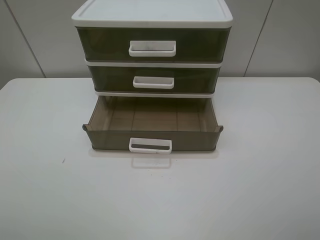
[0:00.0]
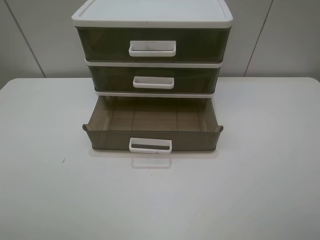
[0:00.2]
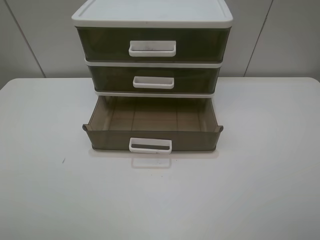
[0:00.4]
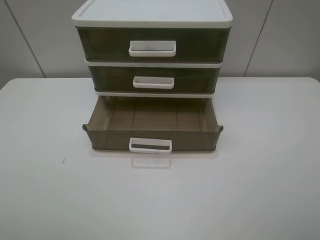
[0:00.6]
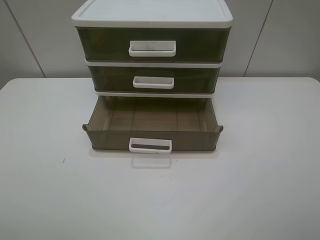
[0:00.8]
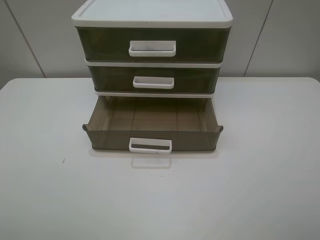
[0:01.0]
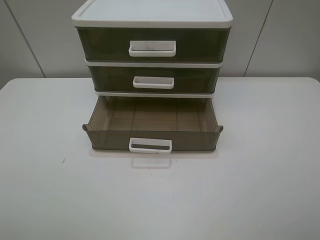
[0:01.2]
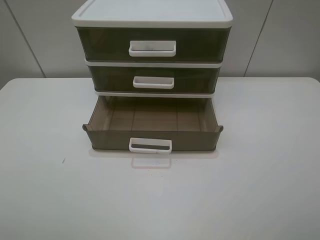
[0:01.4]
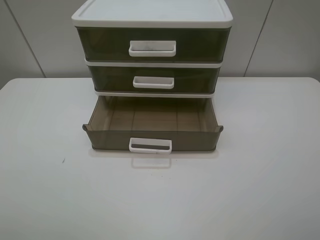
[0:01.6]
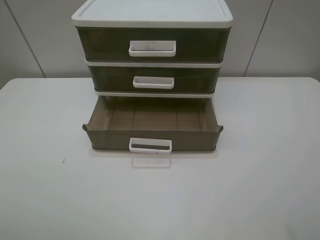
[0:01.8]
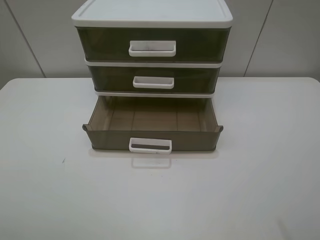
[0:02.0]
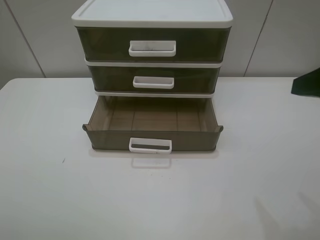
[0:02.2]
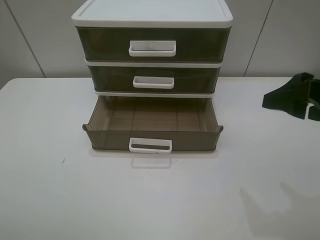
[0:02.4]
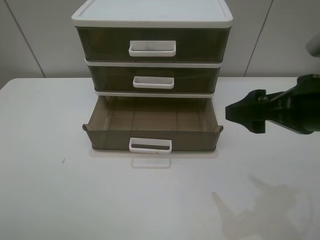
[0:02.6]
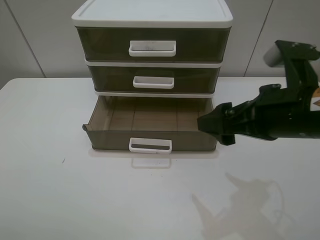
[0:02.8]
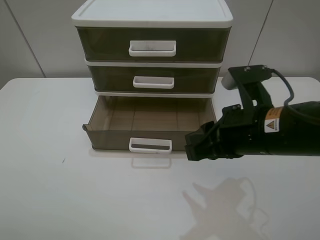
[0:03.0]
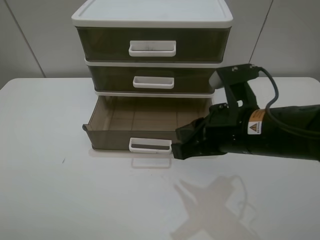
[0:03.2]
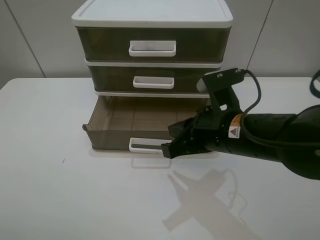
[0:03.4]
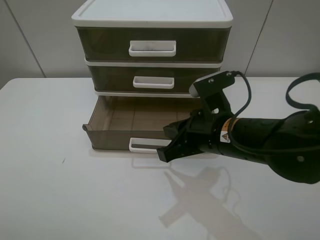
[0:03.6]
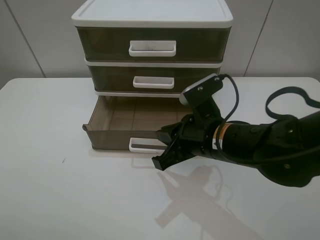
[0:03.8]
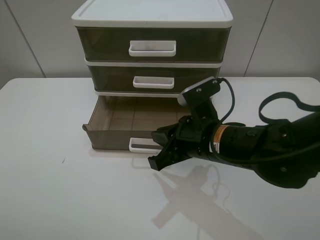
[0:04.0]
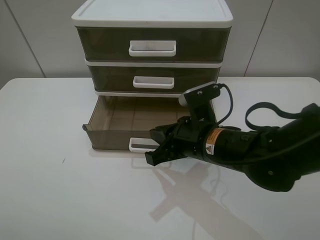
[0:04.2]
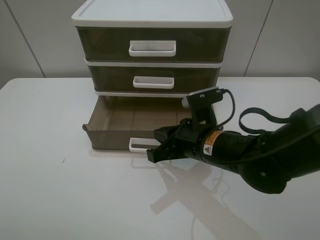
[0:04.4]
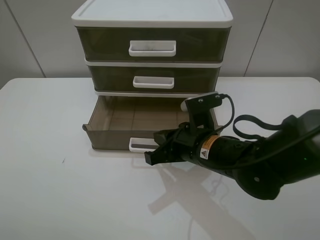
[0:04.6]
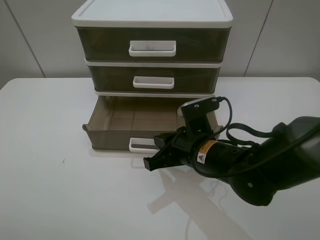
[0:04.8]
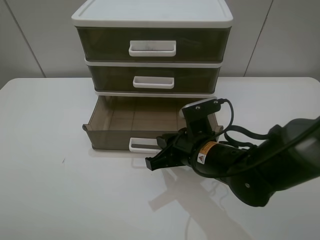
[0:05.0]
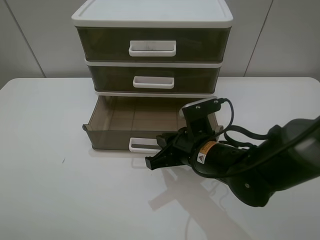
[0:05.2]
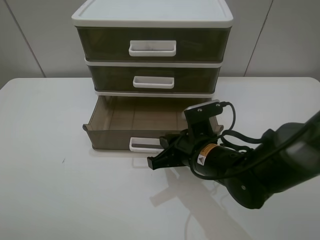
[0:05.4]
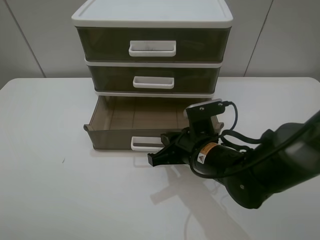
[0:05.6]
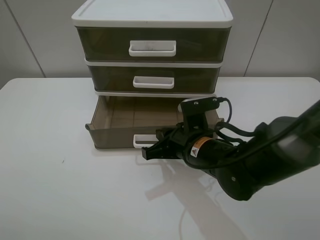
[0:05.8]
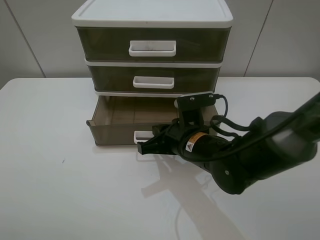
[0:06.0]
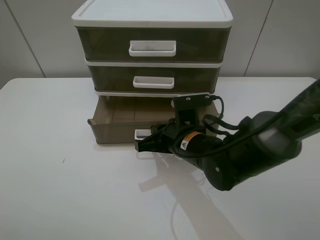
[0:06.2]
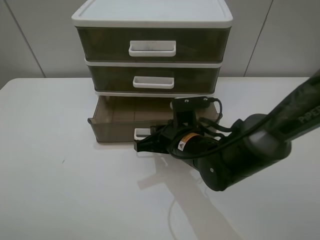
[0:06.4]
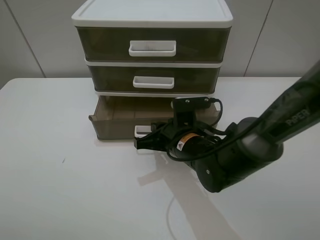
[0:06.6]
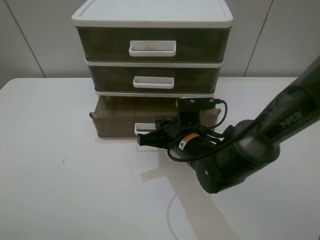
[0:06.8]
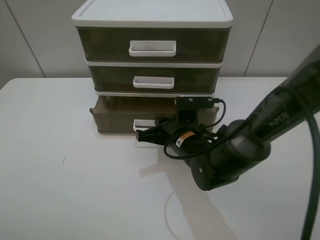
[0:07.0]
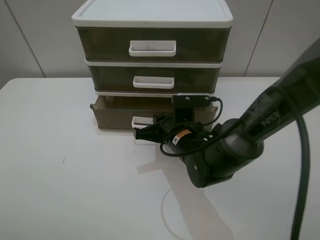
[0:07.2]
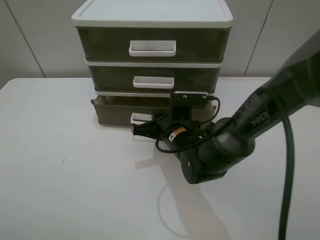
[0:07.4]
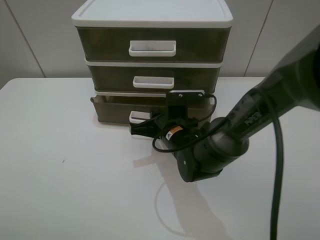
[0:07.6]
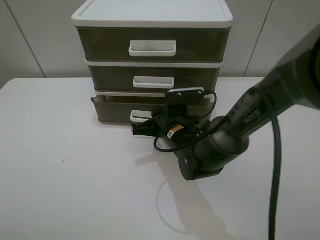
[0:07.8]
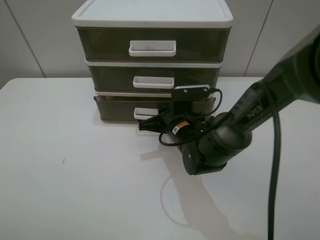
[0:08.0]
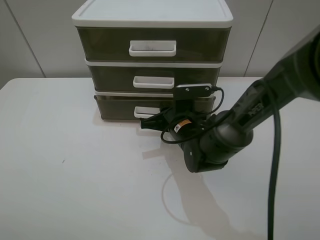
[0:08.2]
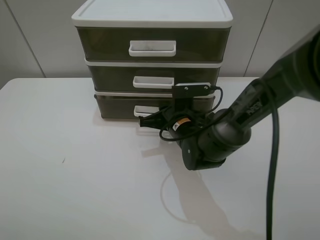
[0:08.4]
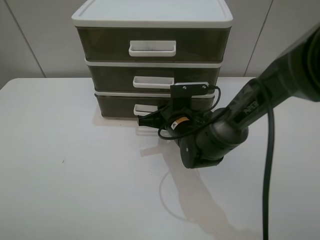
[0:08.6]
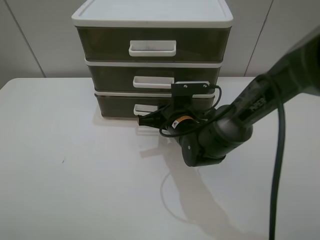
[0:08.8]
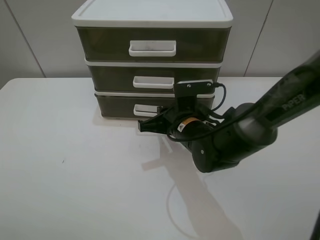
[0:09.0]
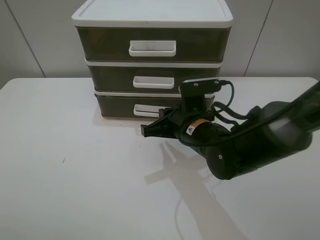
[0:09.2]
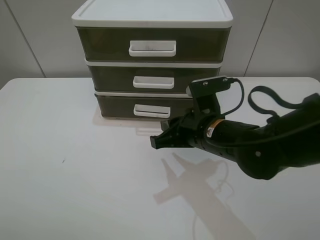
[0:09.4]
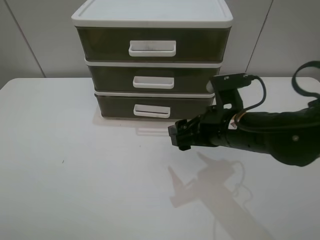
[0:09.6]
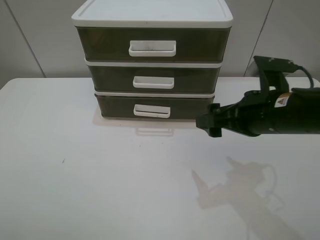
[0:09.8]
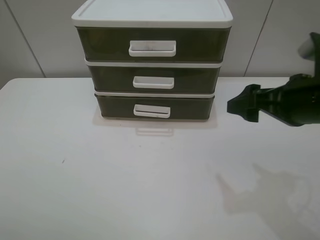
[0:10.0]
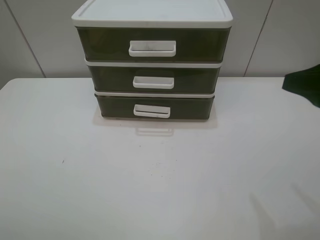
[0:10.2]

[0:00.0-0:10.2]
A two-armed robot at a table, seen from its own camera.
Task of the whole recording: close the bottom drawer.
Step, 0:00.0 to 0:04.2: Use the right gripper to contact the bottom layer of the storage cabinet.
Step, 0:04.4 to 0:08.4: Push the bottom drawer closed.
0:01.4 to 0:03.0: The right gripper moves to the left, forward and downward, some 25 cm, and closes up.
0:03.0 to 0:04.4: The right gripper shifts approximately 10 cm downward.
0:04.4 to 0:05.8: There are only small adjustments of the grippers.
0:05.8 to 0:07.2: The right gripper moves approximately 5 cm.
0:07.2 to 0:08.8: There are only small adjustments of the grippers.
0:08.8 to 0:10.2: The right gripper travels to the right, upward and backward by some 35 cm, and opens its fingers.

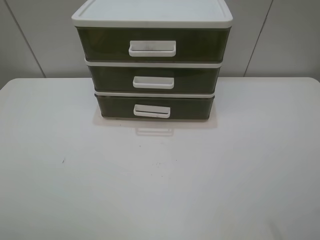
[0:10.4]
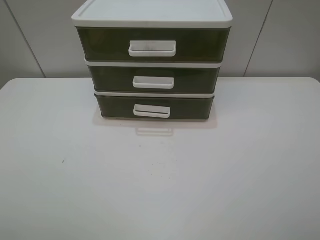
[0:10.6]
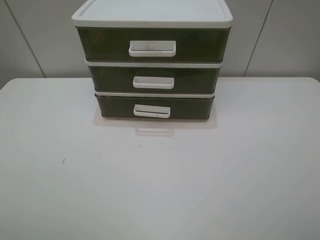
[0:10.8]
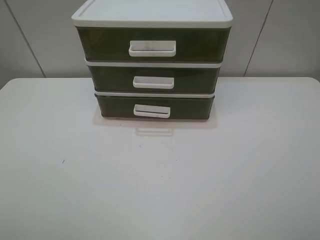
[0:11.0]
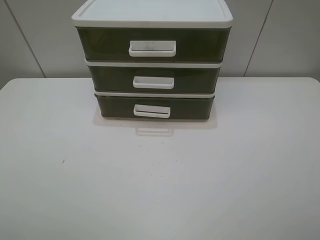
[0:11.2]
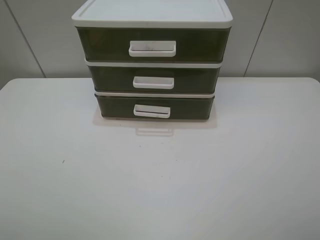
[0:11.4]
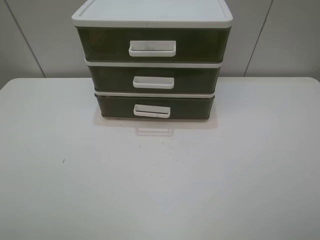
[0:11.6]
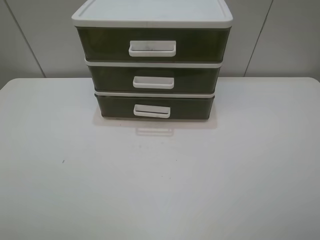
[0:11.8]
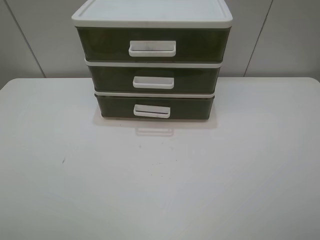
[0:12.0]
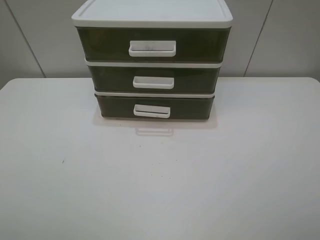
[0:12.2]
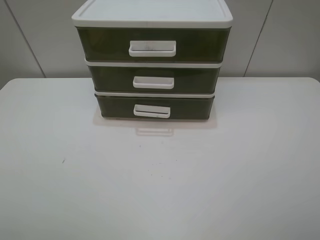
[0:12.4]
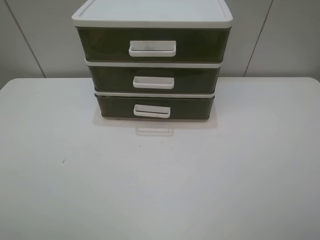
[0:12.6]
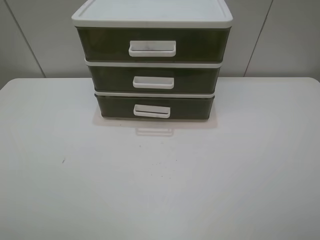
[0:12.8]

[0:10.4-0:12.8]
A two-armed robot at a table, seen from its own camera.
Task of the whole recording: close the bottom drawer.
0:11.6 to 0:12.8: Both grippers stay about where they are.
